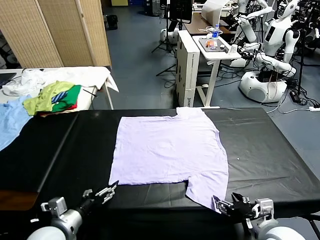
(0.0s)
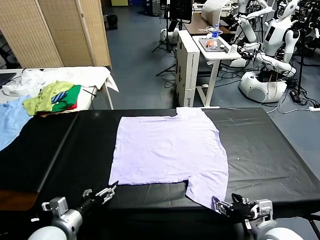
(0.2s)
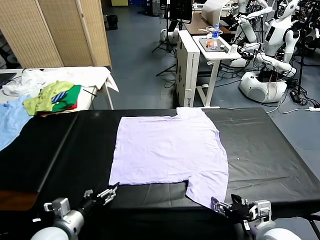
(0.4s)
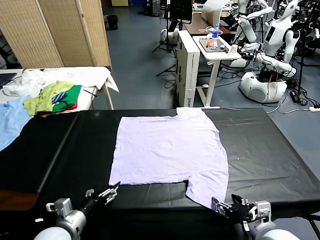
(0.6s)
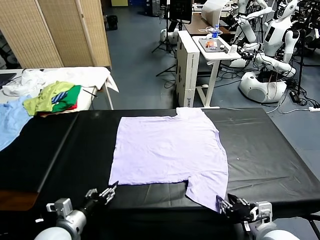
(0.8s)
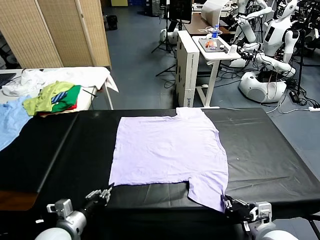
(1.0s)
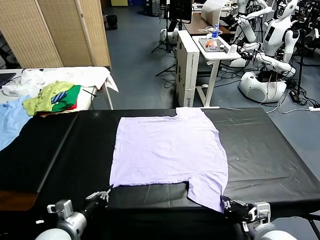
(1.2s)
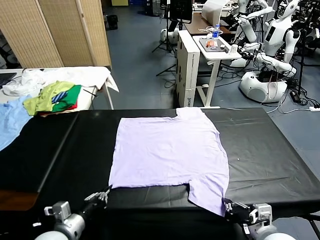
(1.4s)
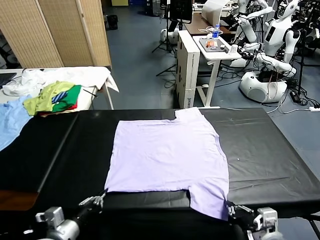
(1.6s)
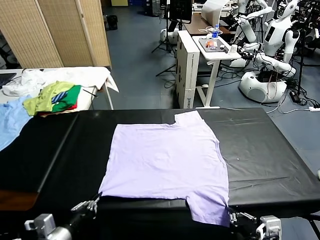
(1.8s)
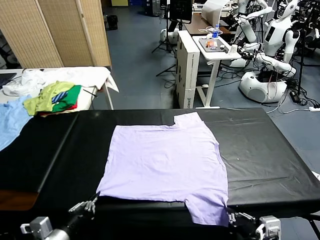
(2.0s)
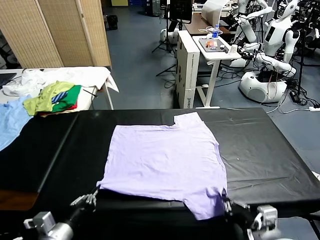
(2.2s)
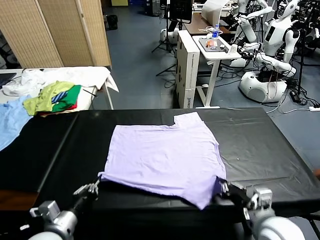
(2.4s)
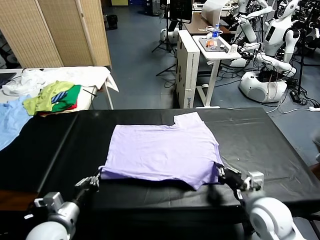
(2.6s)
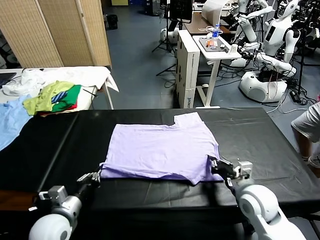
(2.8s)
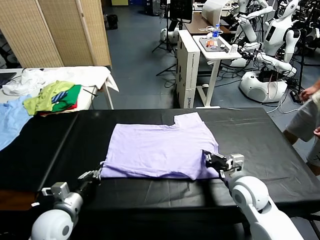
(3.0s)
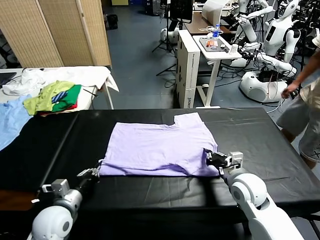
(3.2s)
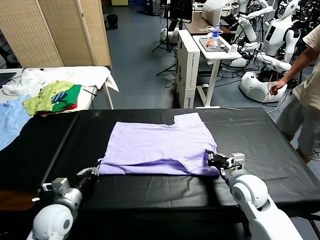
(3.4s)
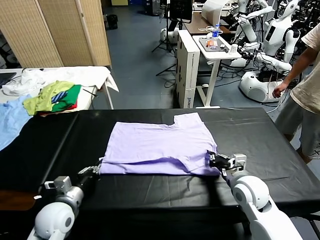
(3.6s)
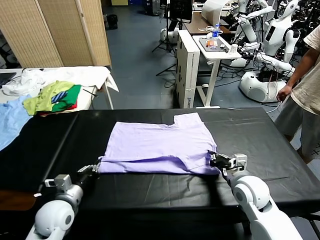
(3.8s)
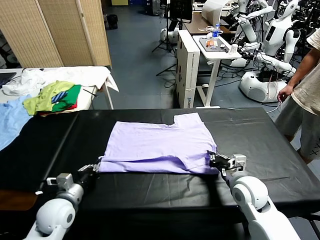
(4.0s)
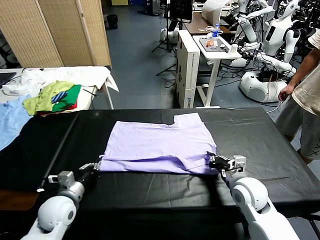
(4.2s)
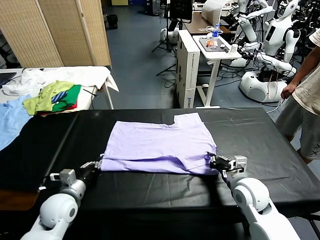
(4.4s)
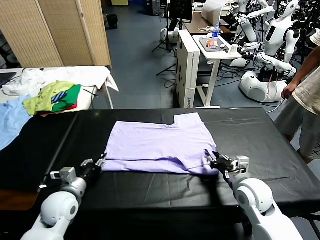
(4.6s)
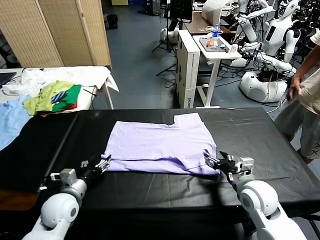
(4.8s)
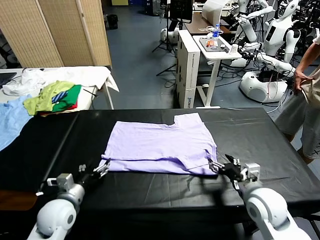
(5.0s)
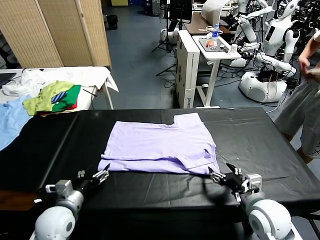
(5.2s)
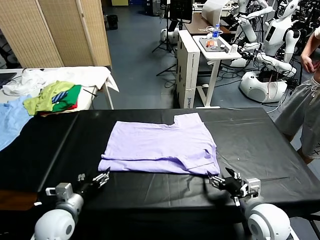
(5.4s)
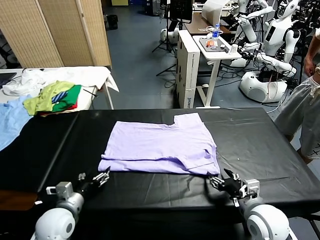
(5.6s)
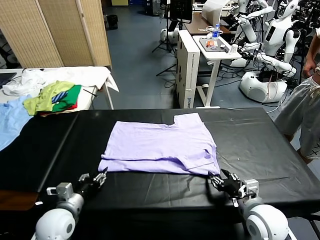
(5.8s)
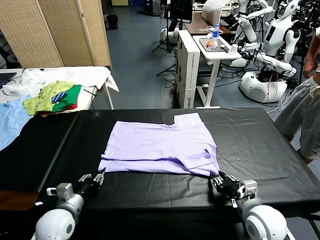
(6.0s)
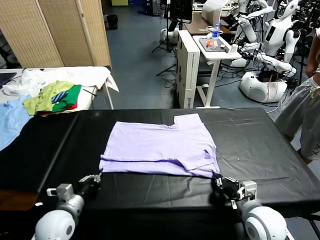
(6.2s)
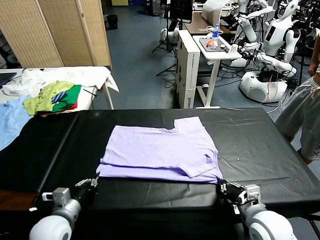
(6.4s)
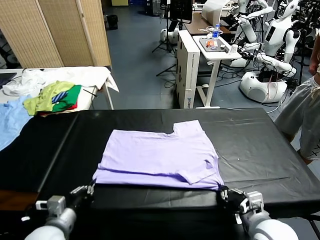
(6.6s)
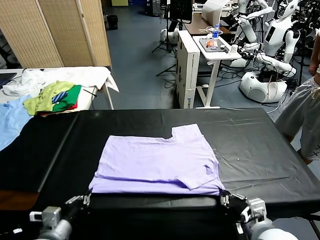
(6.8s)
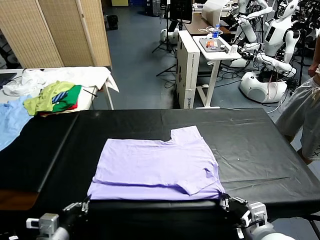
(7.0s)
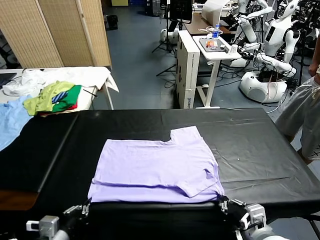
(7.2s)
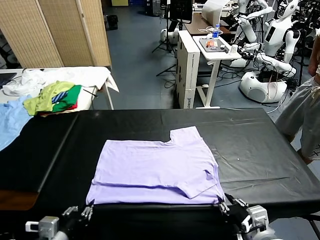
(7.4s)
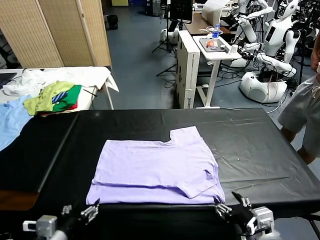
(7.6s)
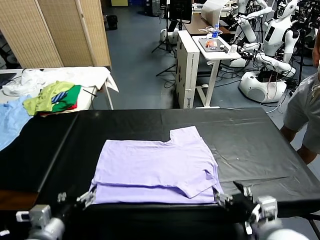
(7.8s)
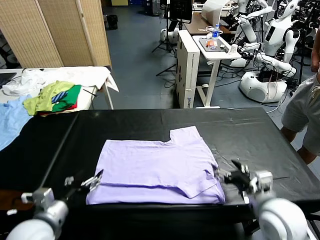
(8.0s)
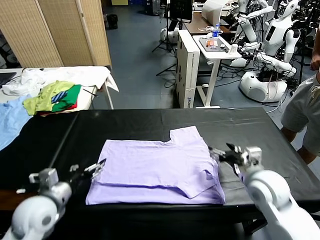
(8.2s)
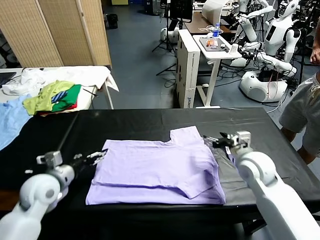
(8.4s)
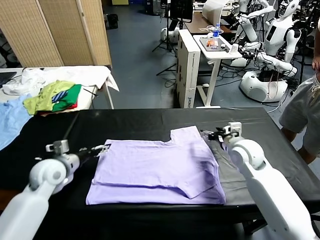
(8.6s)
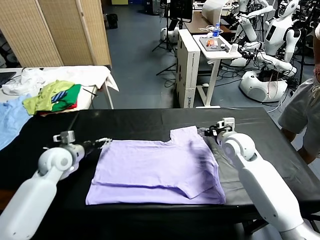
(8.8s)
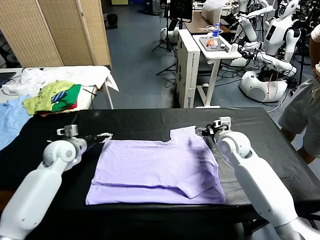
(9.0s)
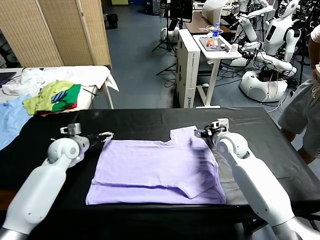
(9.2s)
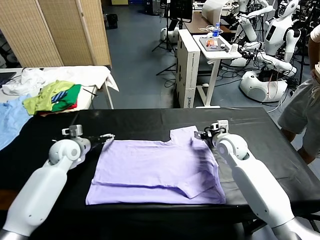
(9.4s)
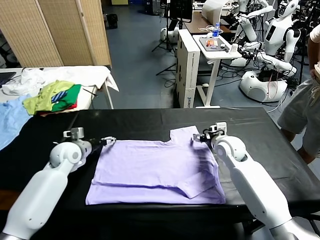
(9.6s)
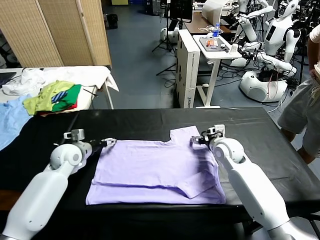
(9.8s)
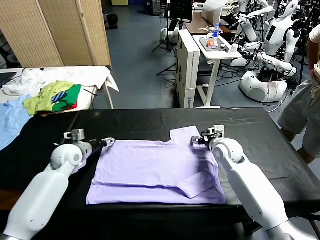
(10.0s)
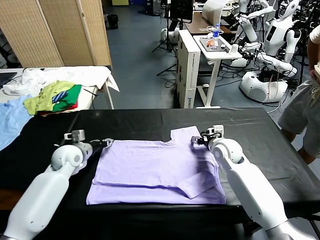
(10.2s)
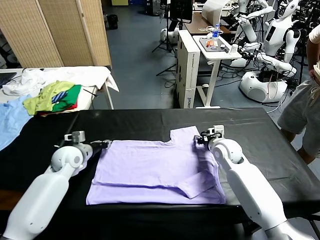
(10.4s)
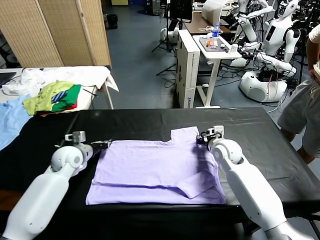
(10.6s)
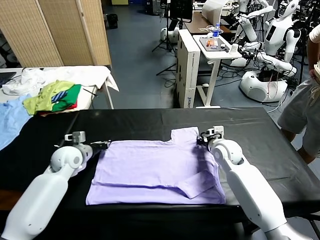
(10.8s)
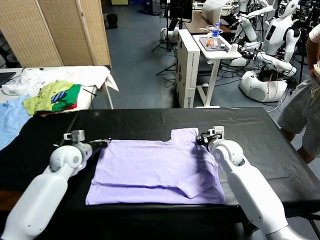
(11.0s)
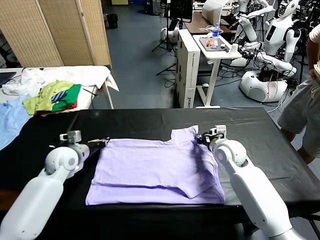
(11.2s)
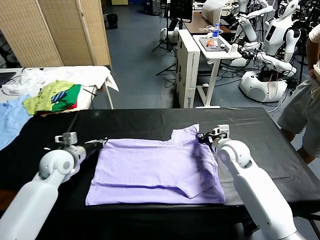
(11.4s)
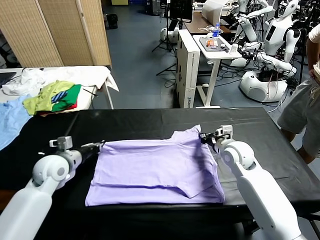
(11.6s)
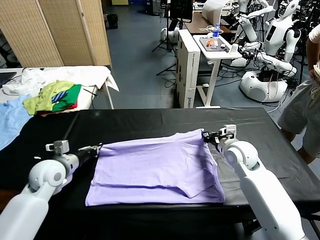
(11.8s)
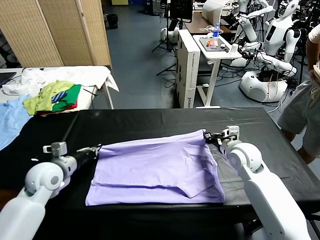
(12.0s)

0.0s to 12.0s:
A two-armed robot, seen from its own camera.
Task of the whole recording: fold and organize the clothes.
Step, 0.0s to 1.4s: use both grippers simultaneously to clamp the lower edge of the clothing fabric.
Step, 1.6s to 4.8s: use both grippers to drag the lower edge of the fabric forward and fold it over the upper edge.
Step, 5.0s to 7.4s: Drag the clothes downward with both gripper.
Step, 7.6s to 11.0s: use both grippers simultaneously to clamp the upper edge of the clothing fabric.
1.6s to 3.0s: The left gripper travels forward by approximately 10 cm. Meanwhile the right gripper goes some 20 cm forward.
3.0s to 4.4s: The right gripper opens its fingers, while the left gripper moves approximately 5 cm, and opens up.
4.4s to 6.0s: The right gripper goes about 10 cm backward, and closes, while the left gripper closes its fingers.
6.0s to 7.6s: The right gripper travels upward and backward by some 10 cm, and opens its fingers. Meanwhile the left gripper moves backward and upward, roughly 15 cm, and opens its fingers.
7.6s to 9.0s: Both grippers travel together forward, about 30 cm.
9.0s to 10.4s: The right gripper closes; the left gripper closes.
10.4s to 12.0s: The left gripper travels backward by roughly 10 cm, while the right gripper is displaced backward and upward by about 10 cm.

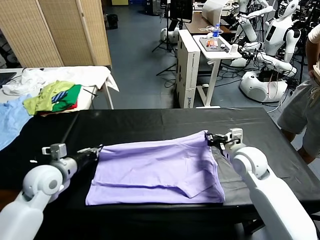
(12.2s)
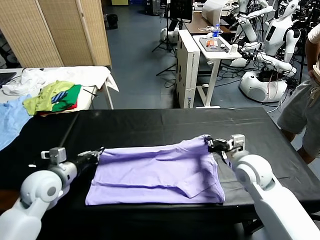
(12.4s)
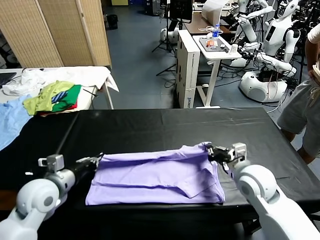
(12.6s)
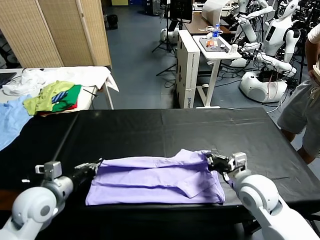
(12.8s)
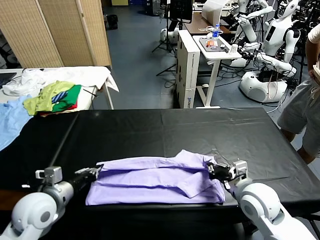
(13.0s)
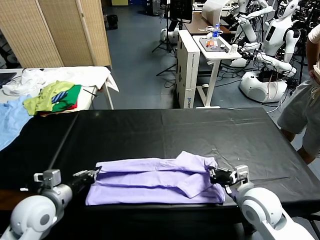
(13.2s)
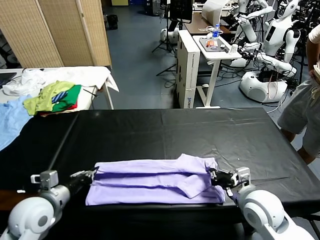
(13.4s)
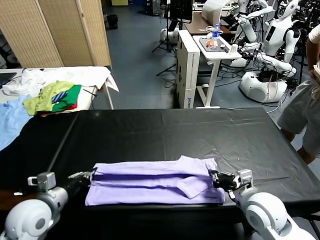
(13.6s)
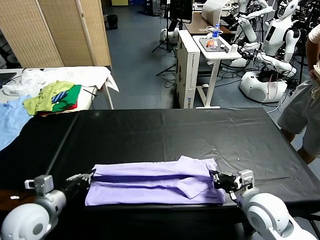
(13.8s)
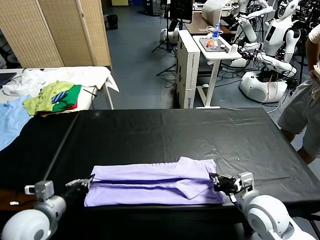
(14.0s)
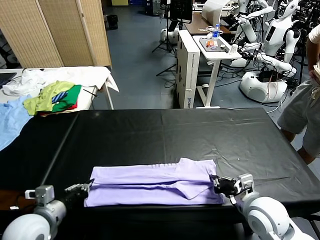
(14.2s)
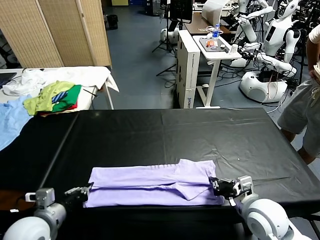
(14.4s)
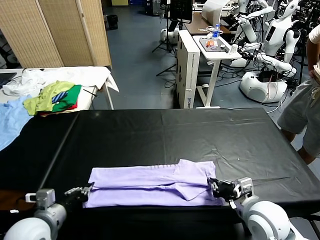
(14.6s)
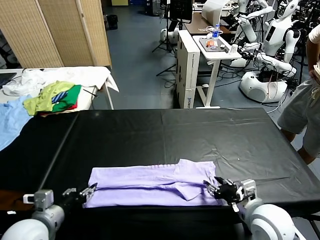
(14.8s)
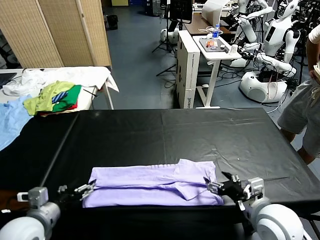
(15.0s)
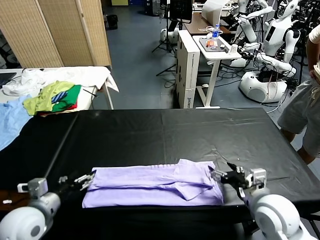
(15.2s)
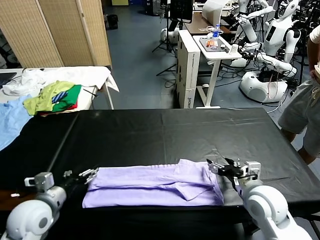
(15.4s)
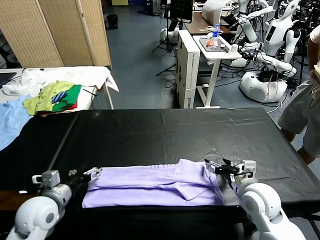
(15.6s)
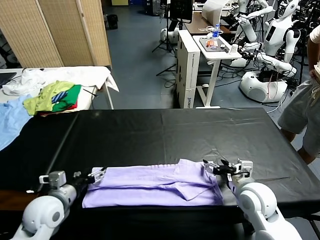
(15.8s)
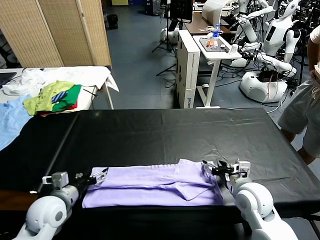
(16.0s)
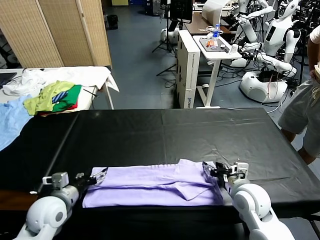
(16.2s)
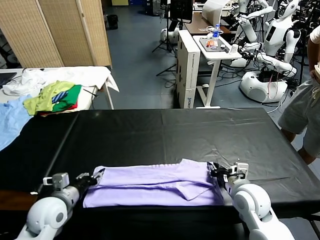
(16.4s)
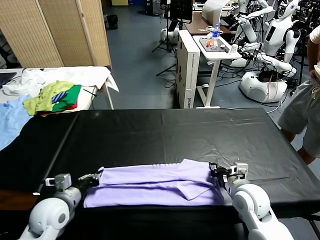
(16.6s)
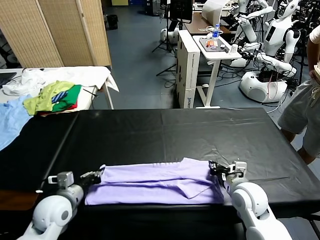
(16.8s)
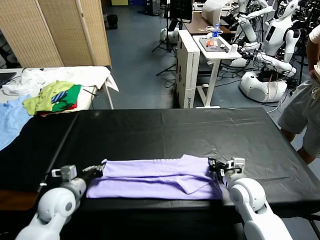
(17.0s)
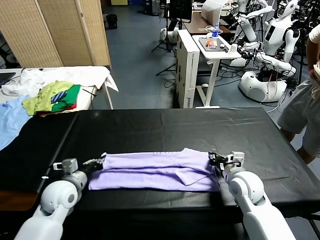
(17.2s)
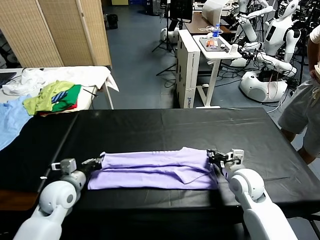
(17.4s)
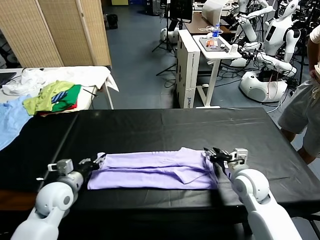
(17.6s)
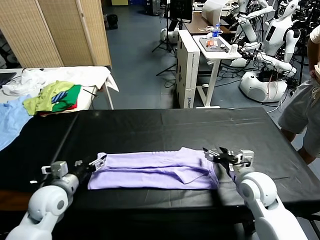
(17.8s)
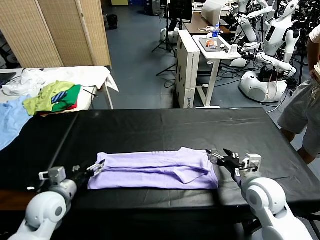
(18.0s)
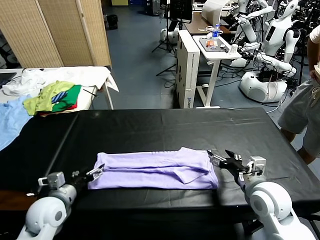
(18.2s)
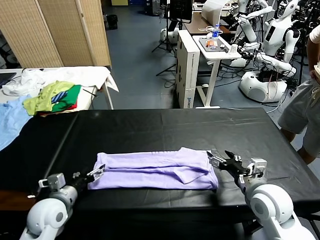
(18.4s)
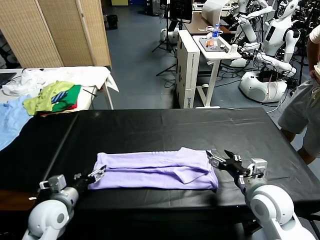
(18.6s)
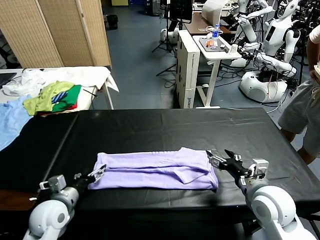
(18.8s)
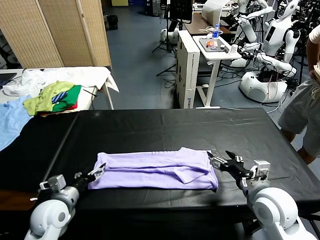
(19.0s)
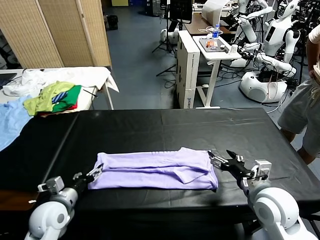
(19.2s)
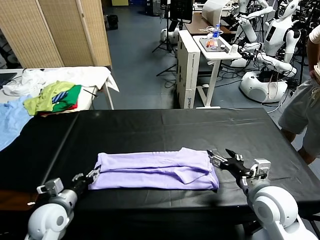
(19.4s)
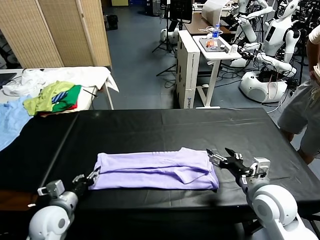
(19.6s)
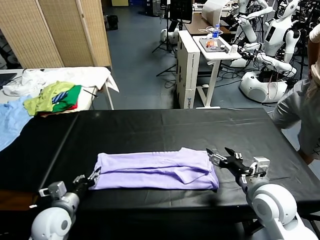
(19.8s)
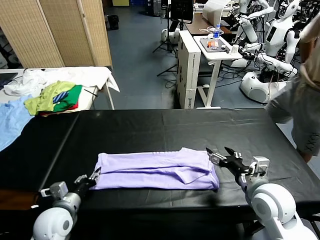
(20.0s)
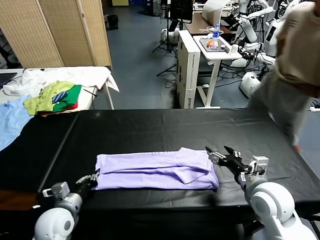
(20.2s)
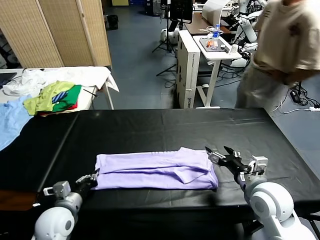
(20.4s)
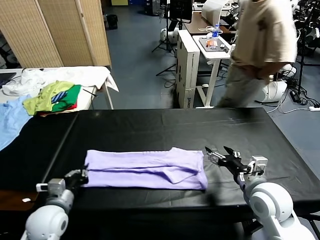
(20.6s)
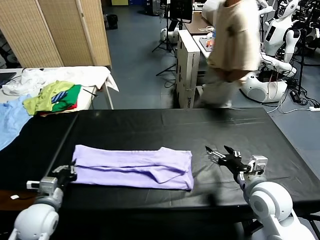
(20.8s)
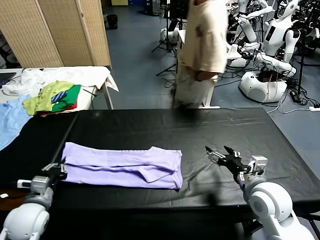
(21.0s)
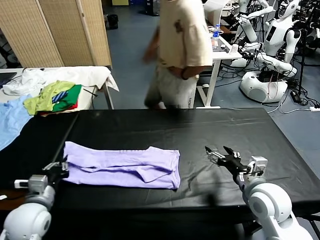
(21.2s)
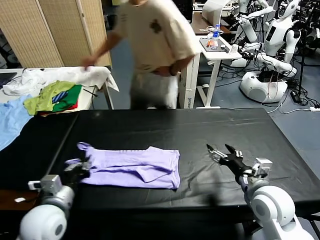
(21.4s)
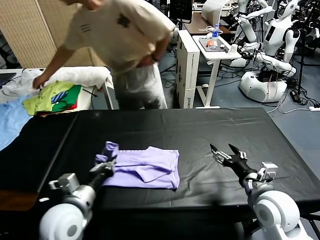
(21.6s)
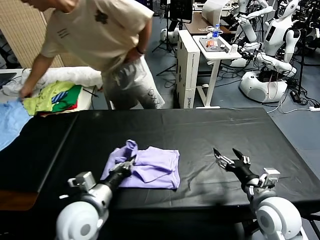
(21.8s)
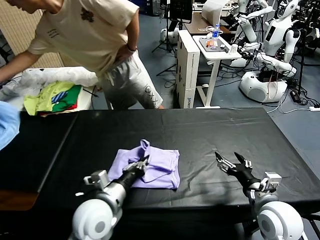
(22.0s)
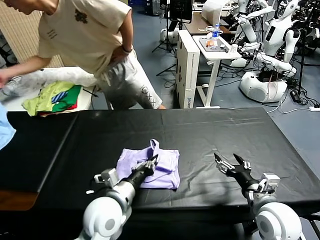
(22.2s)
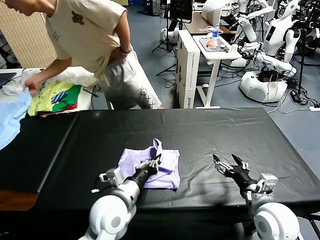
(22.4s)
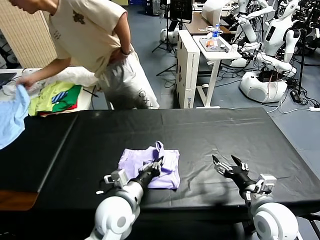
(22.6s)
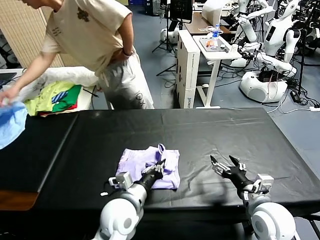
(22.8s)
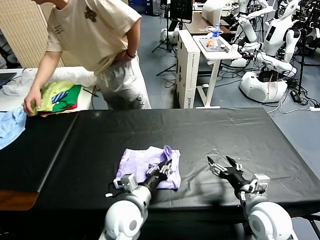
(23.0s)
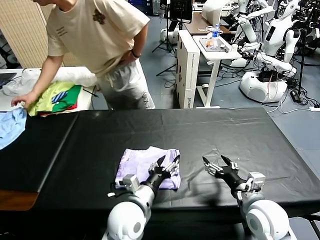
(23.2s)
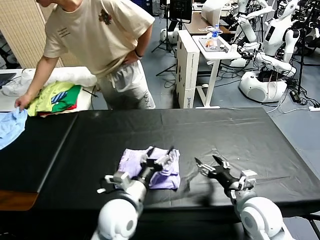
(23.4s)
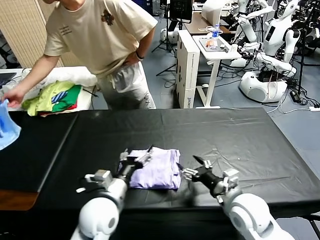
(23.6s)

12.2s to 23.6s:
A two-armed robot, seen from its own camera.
Task of the whole recording: fold and organize the clothes.
Step, 12.2s to 14.8s: use both grippers to drag the upper edge of the fabric backward and fold it over the lower edge.
Step, 15.0s to 20.2s: use the left gripper to clamp the left edge of the fabric.
Step, 20.4s to 23.4s: use the left gripper to drag the left edge of the fabric to the left and folds it over the right edge.
12.2s to 13.6s: The grippers both shift backward by about 10 cm.
13.6s to 15.0s: The left gripper opens up. Meanwhile the right gripper opens.
15.0s to 16.4s: The right gripper heads forward and downward, covering approximately 10 cm, and closes up; the left gripper shifts roughly 5 cm forward, and closes its fingers.
16.4s to 17.8s: The left gripper opens its fingers, while the right gripper opens its fingers.
17.8s to 19.4s: The left gripper ends up approximately 5 cm from where it was, and closes up, while the right gripper changes place by approximately 5 cm.
19.4s to 20.8s: The left gripper closes its fingers.
20.8s to 22.2s: The left gripper shifts roughly 20 cm to the right. The right gripper shifts by roughly 5 cm.
22.2s to 23.6s: The left gripper opens up, while the right gripper shifts about 5 cm to the left.
